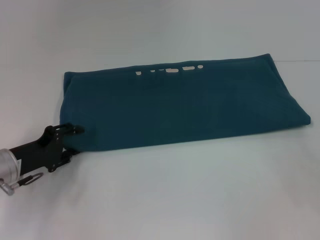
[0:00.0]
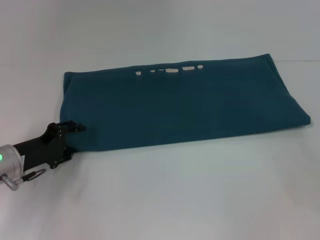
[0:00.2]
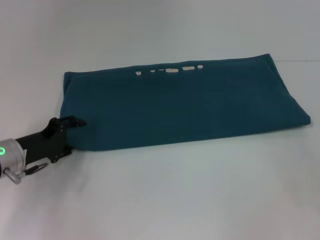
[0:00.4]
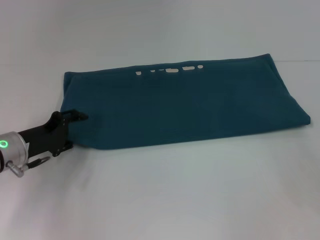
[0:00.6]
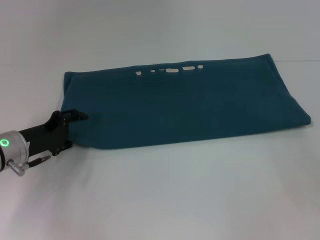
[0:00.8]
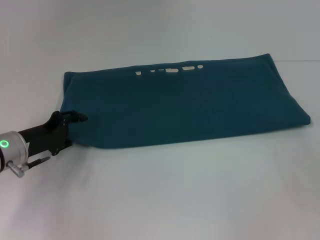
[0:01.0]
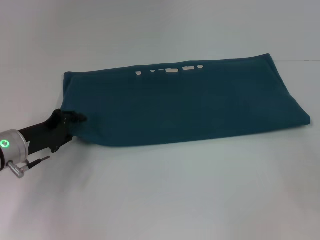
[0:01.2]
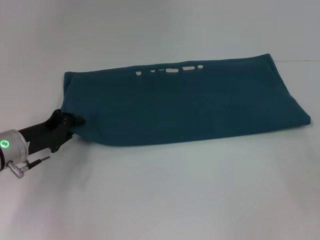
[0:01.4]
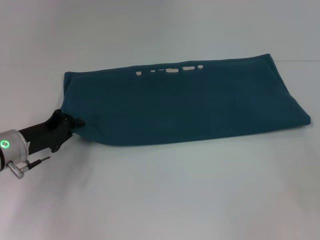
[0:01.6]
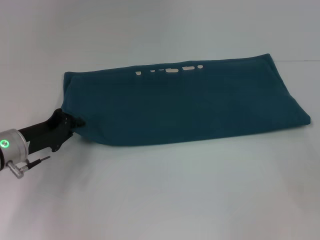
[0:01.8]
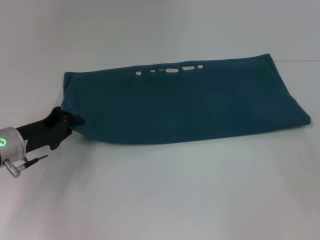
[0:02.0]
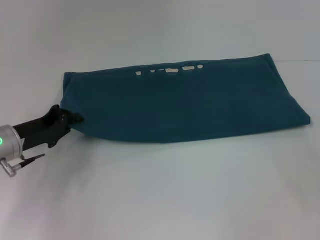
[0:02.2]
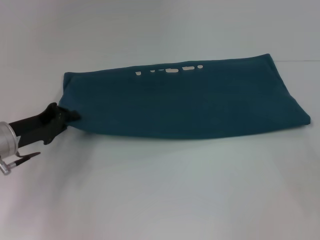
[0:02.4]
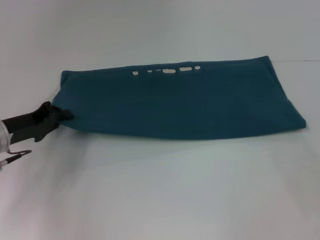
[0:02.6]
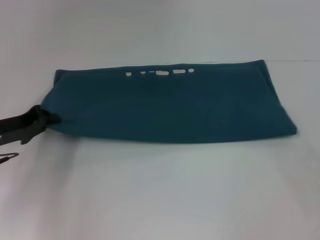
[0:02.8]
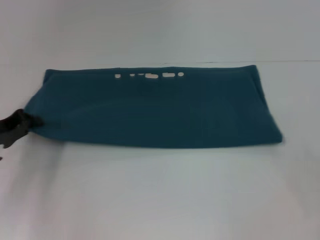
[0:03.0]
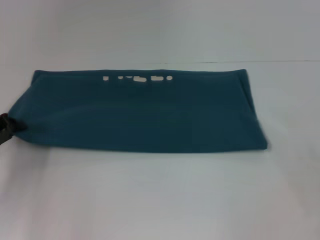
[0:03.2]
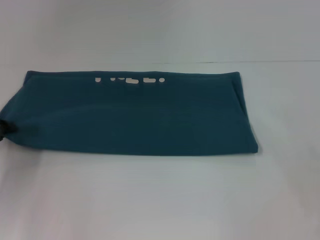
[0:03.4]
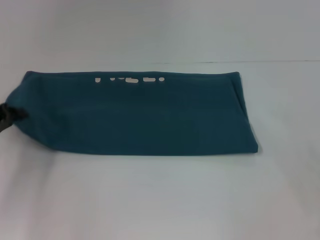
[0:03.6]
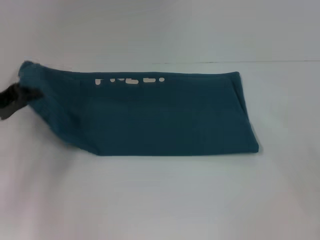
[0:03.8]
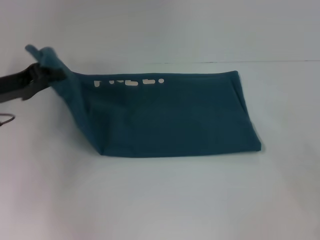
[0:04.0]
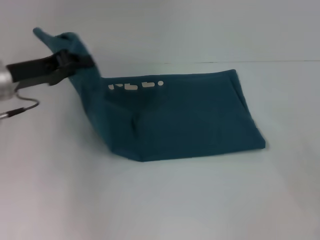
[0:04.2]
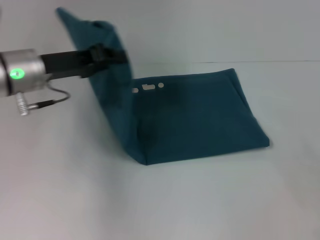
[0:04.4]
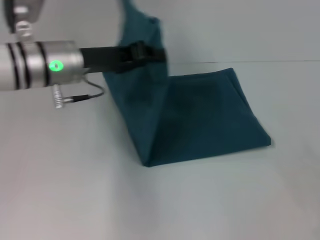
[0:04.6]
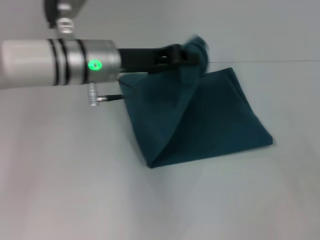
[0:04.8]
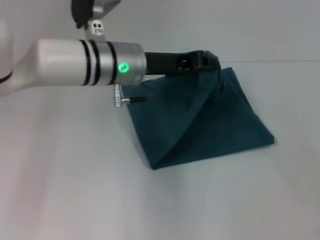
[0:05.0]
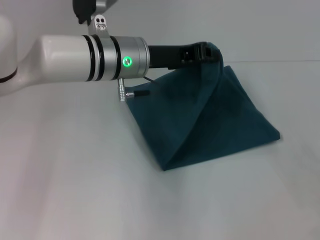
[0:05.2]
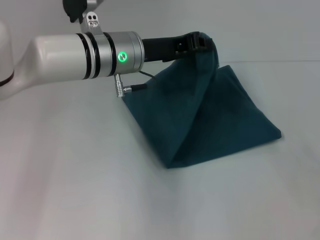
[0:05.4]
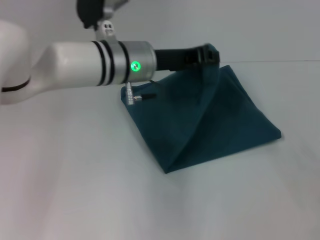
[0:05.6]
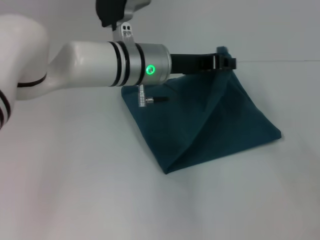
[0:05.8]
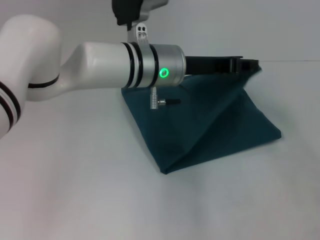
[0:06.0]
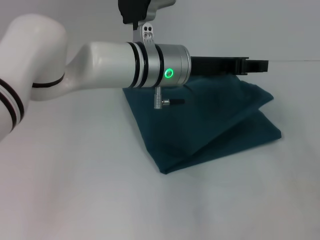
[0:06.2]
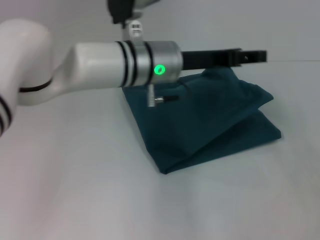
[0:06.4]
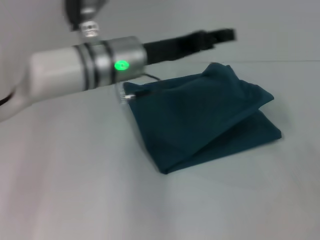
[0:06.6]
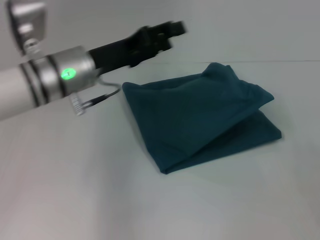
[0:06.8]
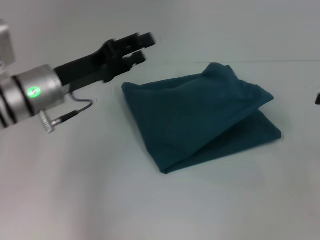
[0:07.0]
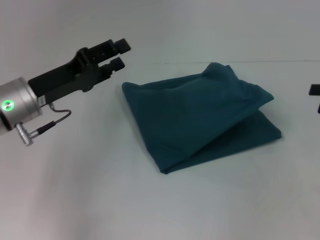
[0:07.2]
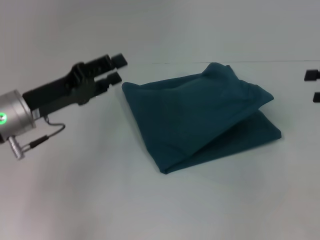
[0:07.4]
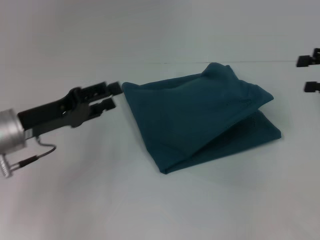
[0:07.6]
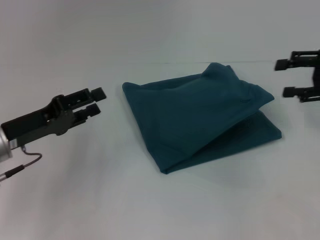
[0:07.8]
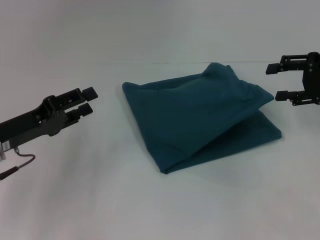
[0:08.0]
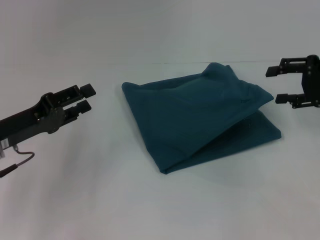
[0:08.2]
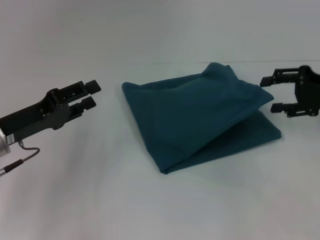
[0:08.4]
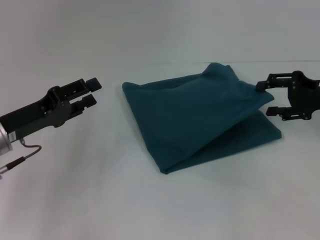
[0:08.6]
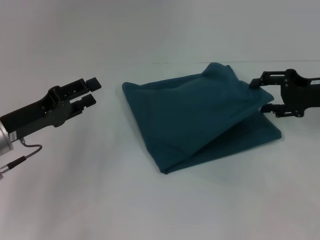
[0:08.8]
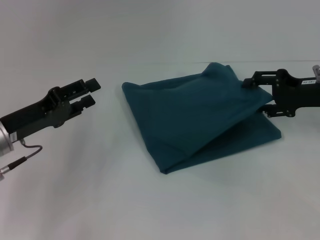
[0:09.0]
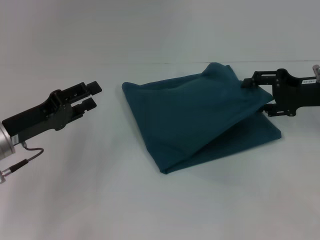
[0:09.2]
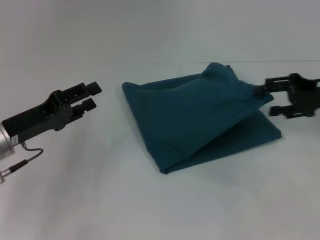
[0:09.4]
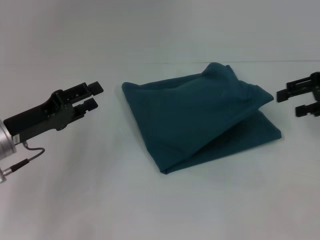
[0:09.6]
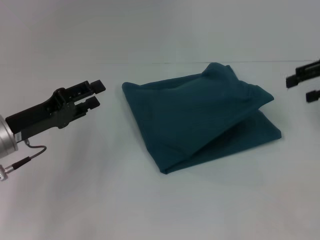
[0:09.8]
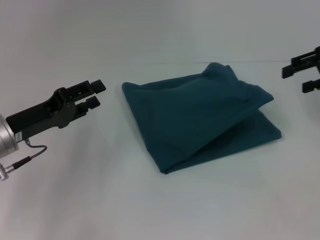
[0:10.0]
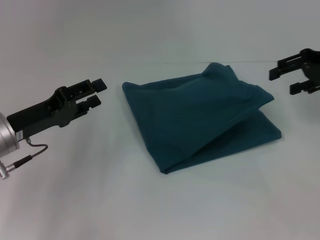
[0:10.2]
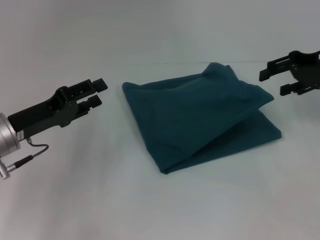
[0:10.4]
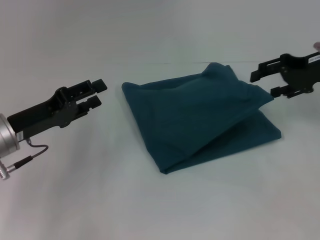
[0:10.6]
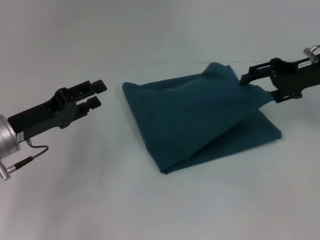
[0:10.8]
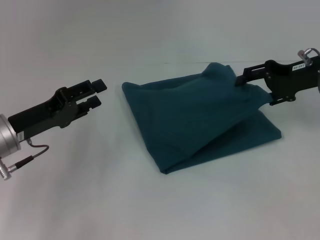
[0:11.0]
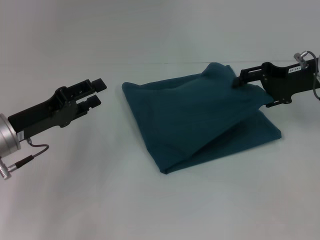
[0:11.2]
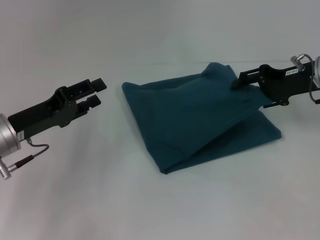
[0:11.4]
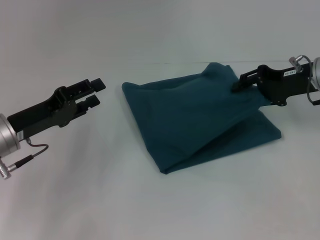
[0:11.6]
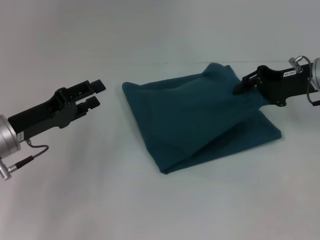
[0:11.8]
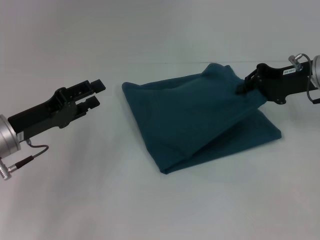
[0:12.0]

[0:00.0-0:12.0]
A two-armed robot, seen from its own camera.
Step, 0:00.0 to 0:06.2: Fold the clothes to the left.
0:00.0 to 0:01.6: The left gripper closes up.
0:01.6 to 0:03.0: The left gripper heads to the left, covering some 5 cm.
0:03.0 to 0:04.4: The left gripper shifts some 15 cm to the right, upward and forward.
0:04.4 to 0:06.0: The left gripper shifts some 20 cm to the right.
0:06.0 to 0:07.6: The right gripper heads forward and upward, covering some 15 cm, while the left gripper shifts some 25 cm to the left and backward, and opens up.
0:07.6 to 0:09.0: The right gripper shifts roughly 10 cm to the left and downward.
0:09.0 to 0:10.4: The right gripper shifts about 5 cm upward.
0:10.4 to 0:12.0: The right gripper shifts by approximately 5 cm, and closes.

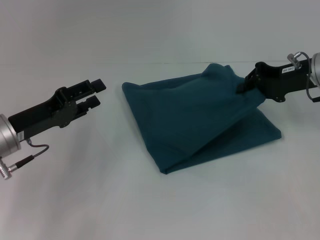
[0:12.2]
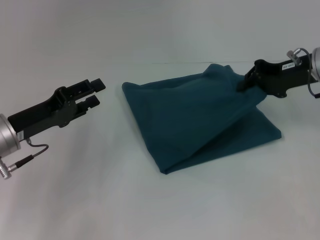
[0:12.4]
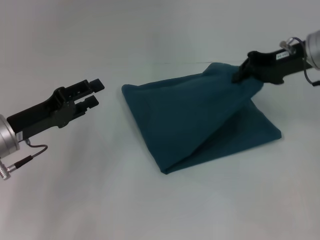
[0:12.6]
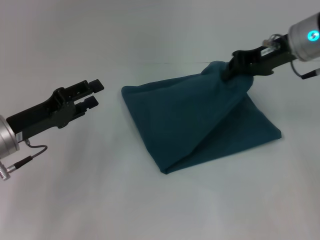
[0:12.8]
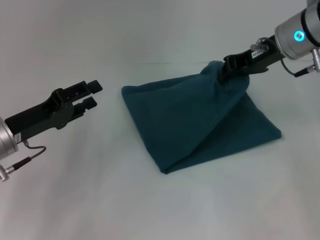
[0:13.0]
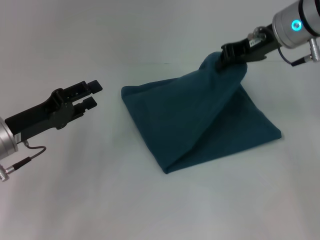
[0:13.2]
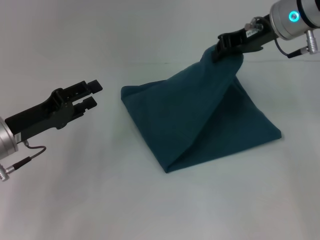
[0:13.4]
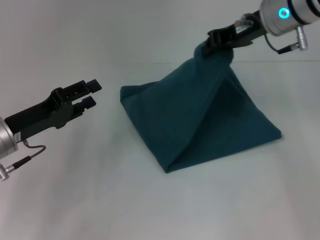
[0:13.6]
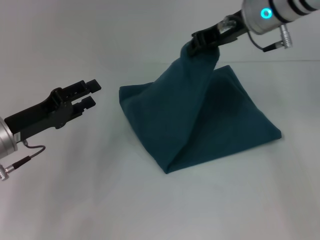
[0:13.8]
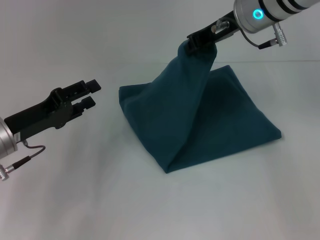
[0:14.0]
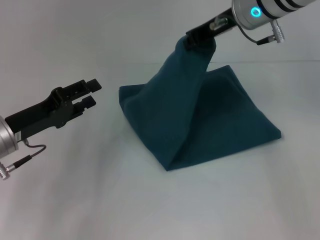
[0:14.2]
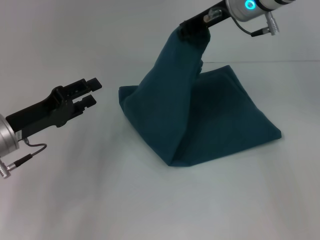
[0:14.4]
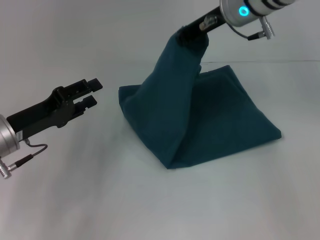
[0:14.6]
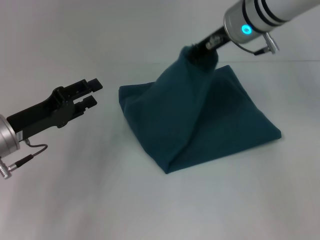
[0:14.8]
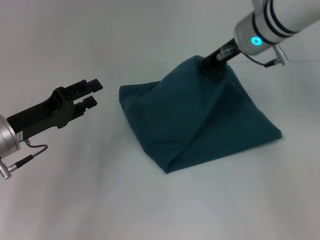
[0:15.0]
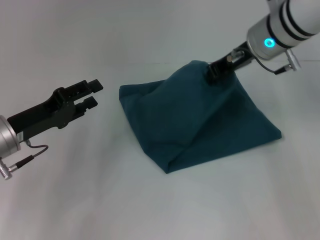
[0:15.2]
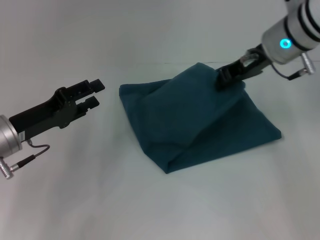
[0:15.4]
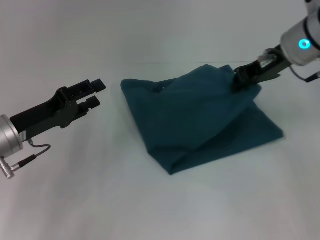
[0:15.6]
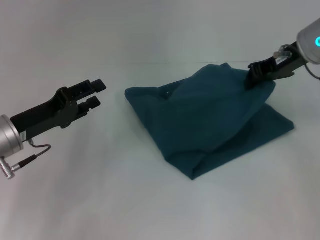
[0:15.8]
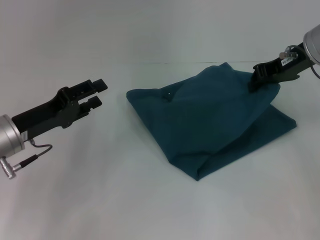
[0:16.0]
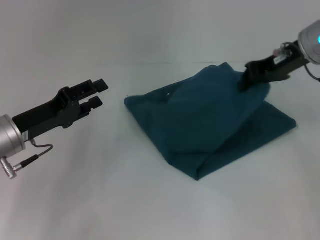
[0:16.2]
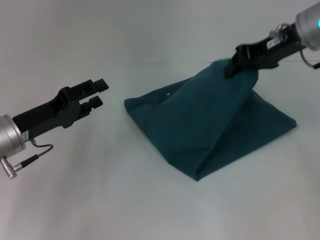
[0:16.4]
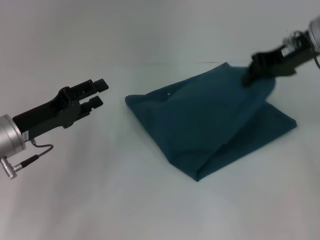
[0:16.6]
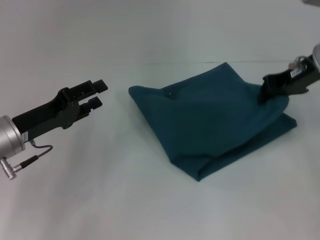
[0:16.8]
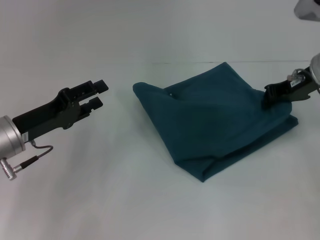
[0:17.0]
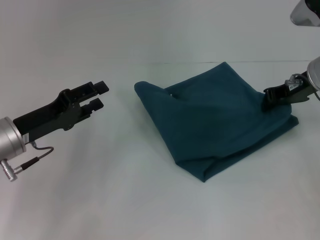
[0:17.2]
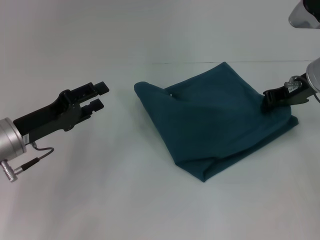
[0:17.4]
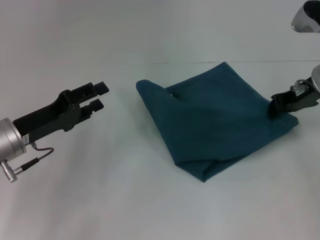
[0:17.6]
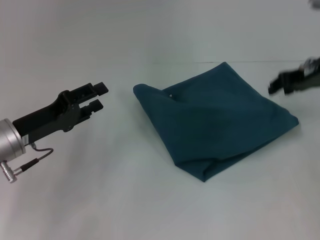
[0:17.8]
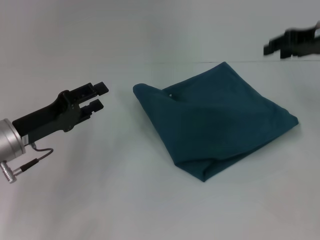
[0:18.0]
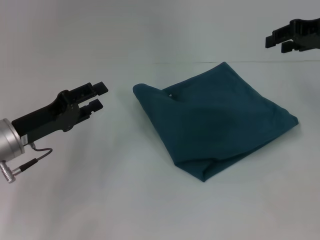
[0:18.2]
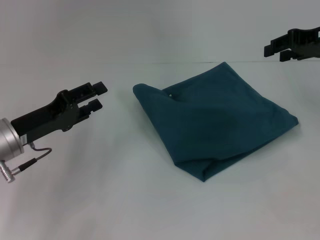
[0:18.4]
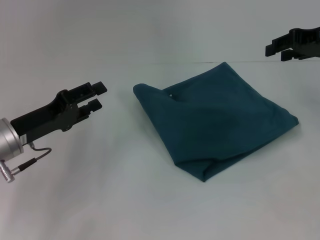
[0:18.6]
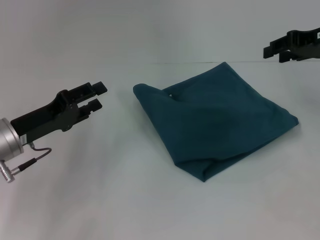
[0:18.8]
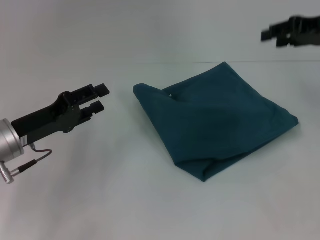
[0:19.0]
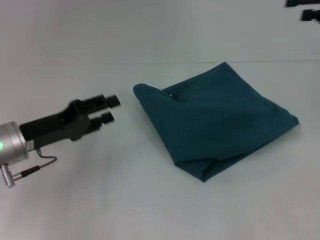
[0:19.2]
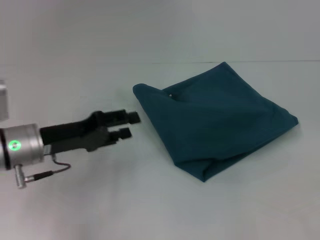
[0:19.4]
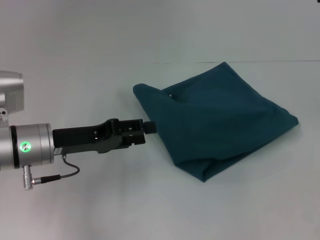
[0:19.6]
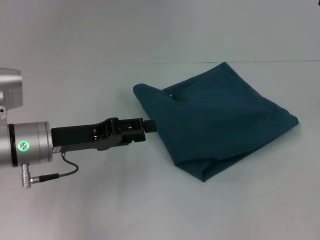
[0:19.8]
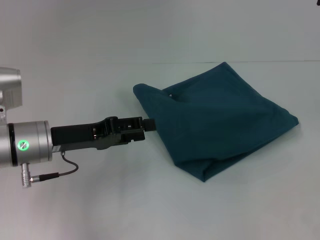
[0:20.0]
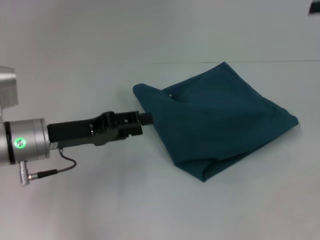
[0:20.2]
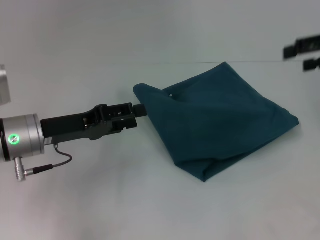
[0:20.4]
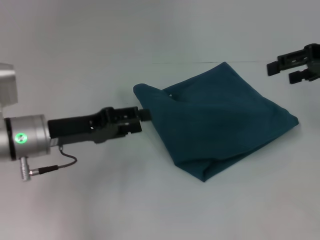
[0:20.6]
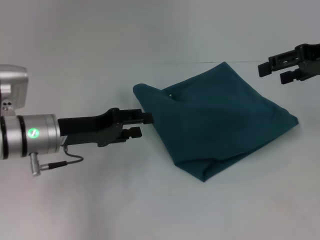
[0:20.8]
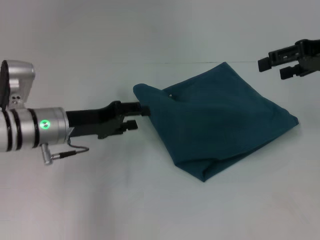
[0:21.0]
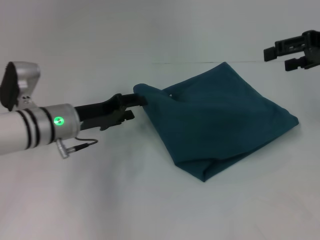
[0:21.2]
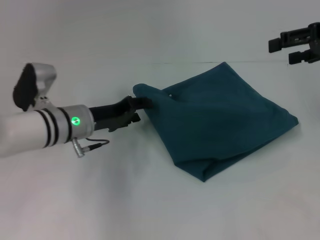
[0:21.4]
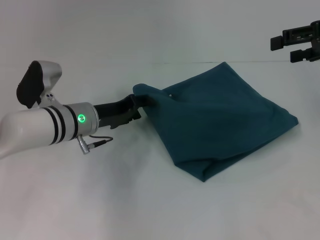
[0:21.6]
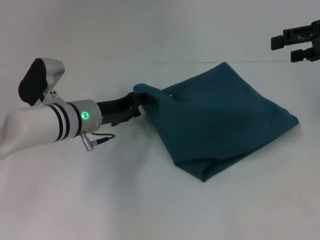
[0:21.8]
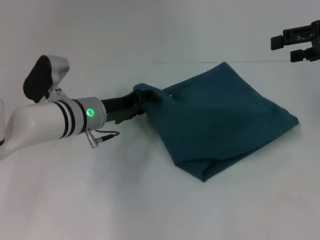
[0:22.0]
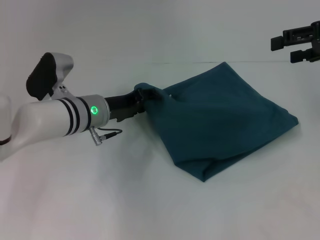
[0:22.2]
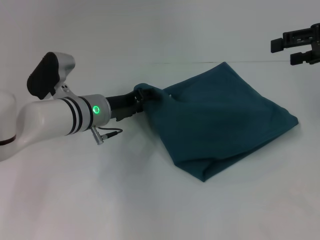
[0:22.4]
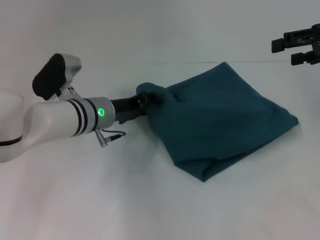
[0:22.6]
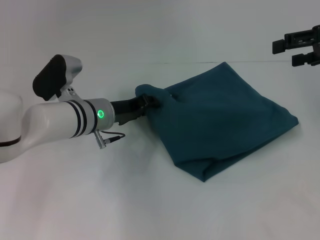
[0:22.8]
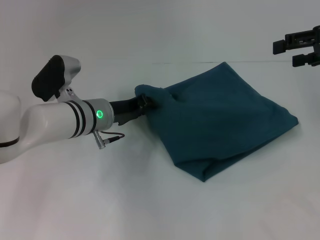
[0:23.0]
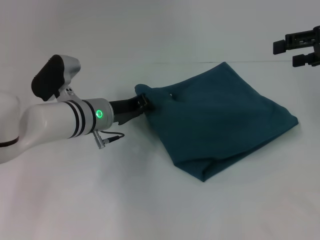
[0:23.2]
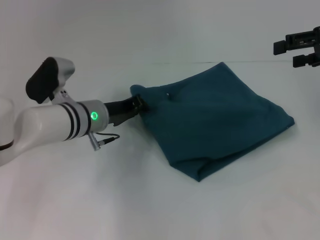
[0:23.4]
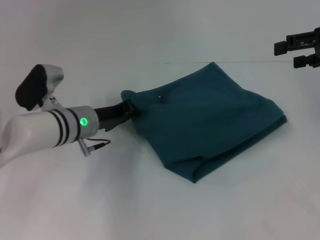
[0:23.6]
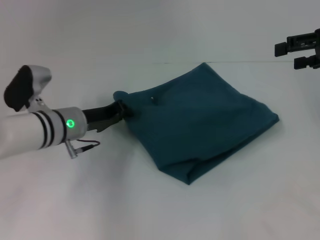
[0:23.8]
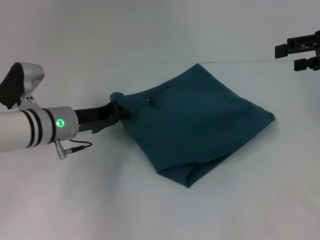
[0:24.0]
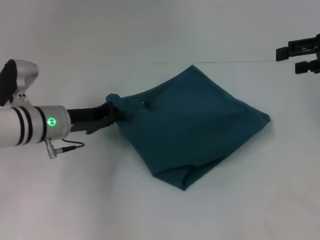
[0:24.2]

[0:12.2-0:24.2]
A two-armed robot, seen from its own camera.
0:12.2 to 0:13.8: The right gripper moves to the left and upward, about 15 cm.
0:13.8 to 0:15.2: The grippers make only small movements.
0:15.2 to 0:16.6: The right gripper heads to the right, covering about 10 cm.
0:16.6 to 0:18.2: The right gripper shifts approximately 5 cm to the right, reaches about 5 cm downward, then returns, and opens.
0:18.2 to 0:19.8: The right gripper moves to the right, approximately 10 cm, and opens up.
0:19.8 to 0:21.2: The right gripper goes approximately 5 cm to the left; the left gripper changes place by some 5 cm.
0:21.2 to 0:22.6: The left gripper heads to the right, covering roughly 5 cm.
0:22.6 to 0:24.2: The left gripper is displaced to the left by some 5 cm, and closes.
